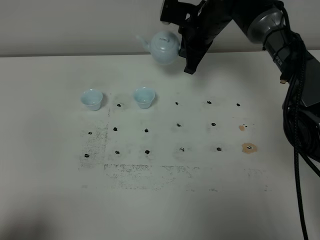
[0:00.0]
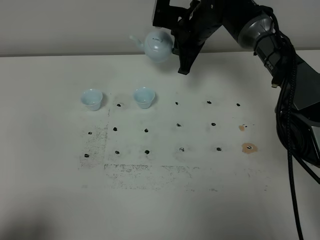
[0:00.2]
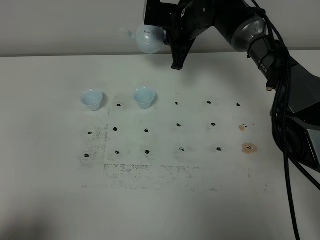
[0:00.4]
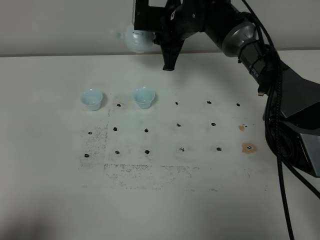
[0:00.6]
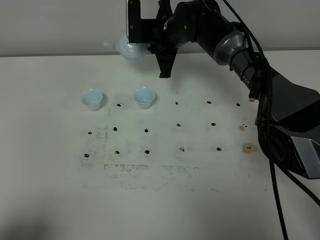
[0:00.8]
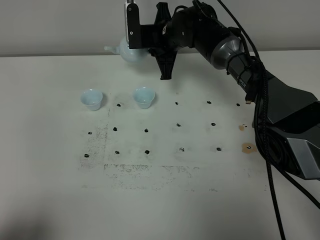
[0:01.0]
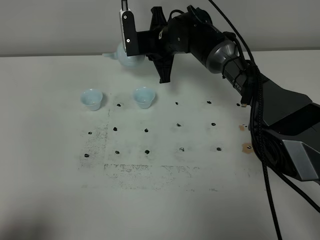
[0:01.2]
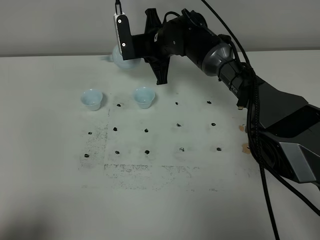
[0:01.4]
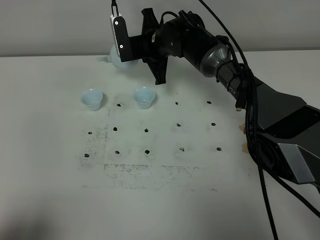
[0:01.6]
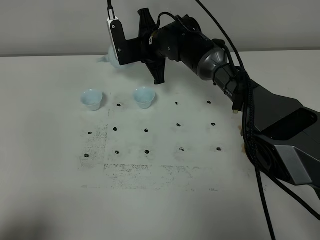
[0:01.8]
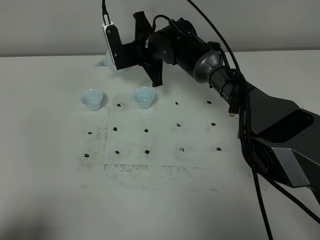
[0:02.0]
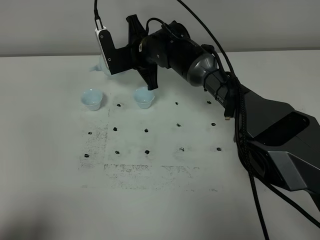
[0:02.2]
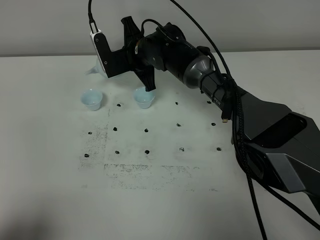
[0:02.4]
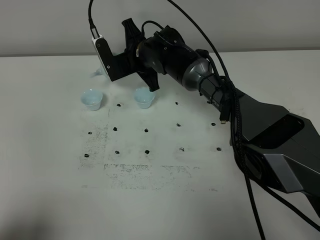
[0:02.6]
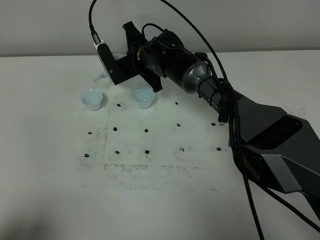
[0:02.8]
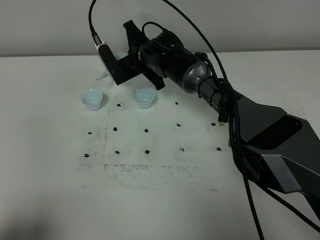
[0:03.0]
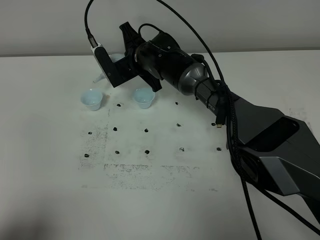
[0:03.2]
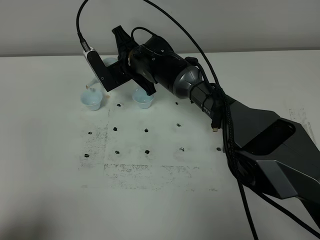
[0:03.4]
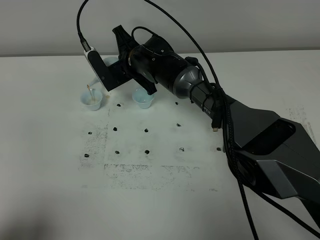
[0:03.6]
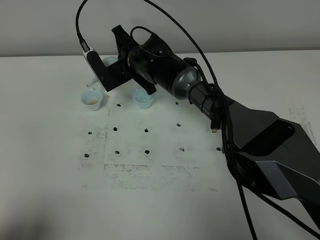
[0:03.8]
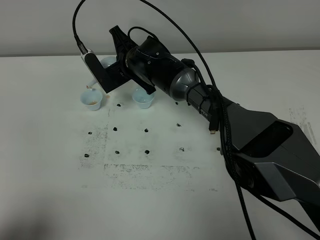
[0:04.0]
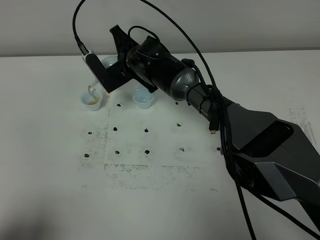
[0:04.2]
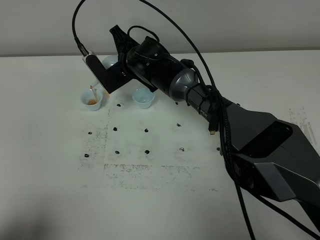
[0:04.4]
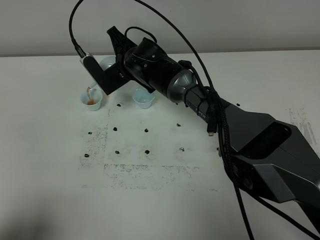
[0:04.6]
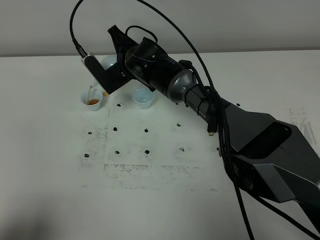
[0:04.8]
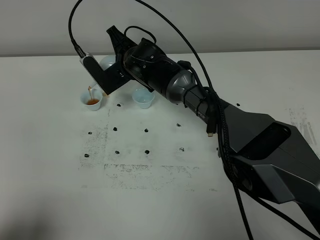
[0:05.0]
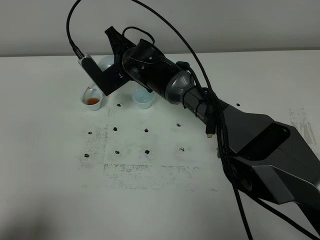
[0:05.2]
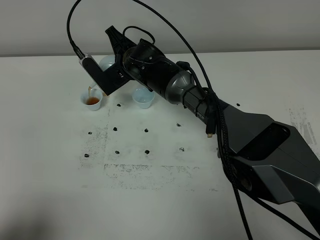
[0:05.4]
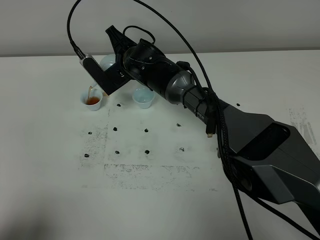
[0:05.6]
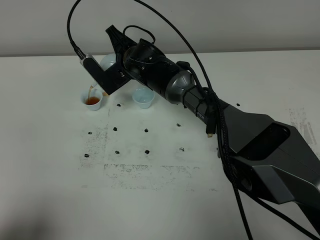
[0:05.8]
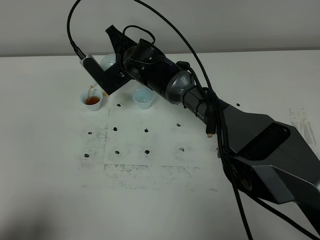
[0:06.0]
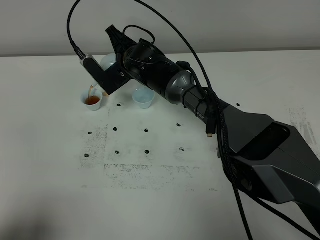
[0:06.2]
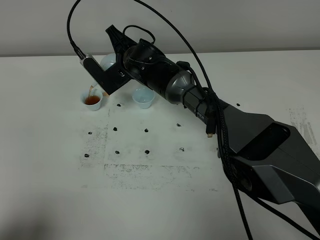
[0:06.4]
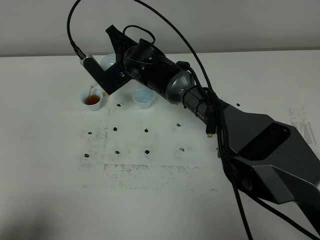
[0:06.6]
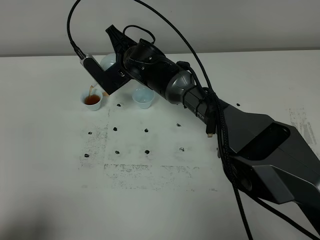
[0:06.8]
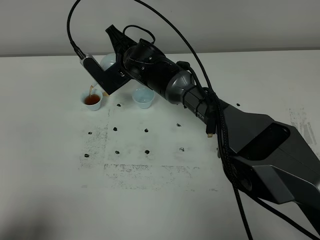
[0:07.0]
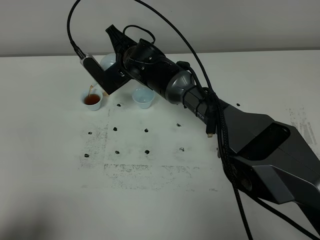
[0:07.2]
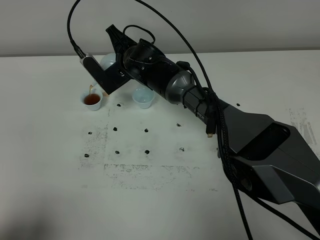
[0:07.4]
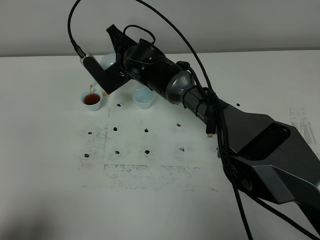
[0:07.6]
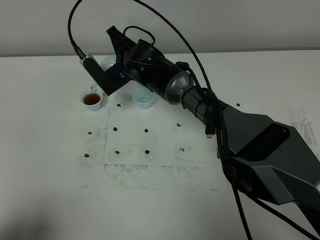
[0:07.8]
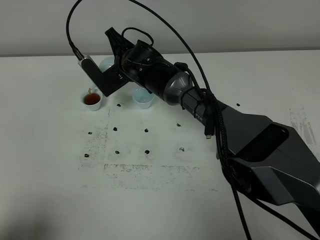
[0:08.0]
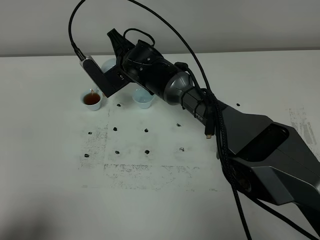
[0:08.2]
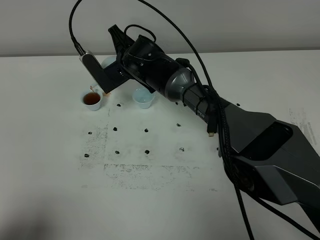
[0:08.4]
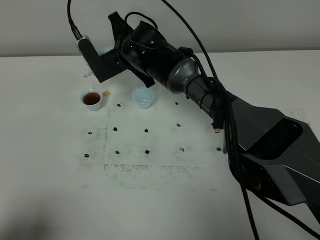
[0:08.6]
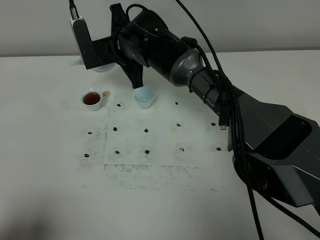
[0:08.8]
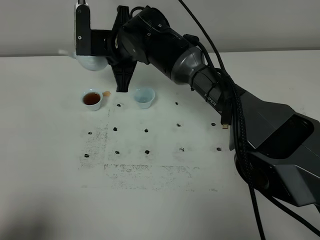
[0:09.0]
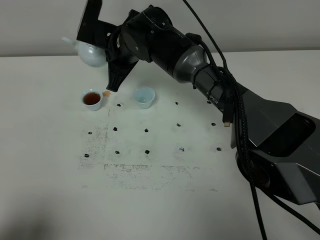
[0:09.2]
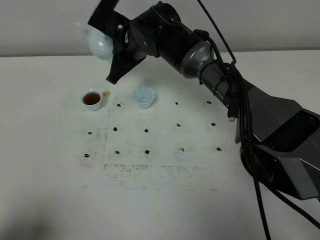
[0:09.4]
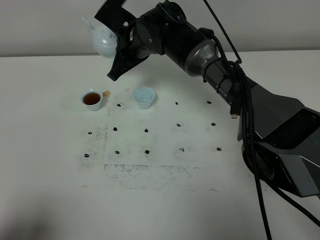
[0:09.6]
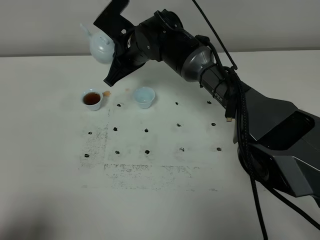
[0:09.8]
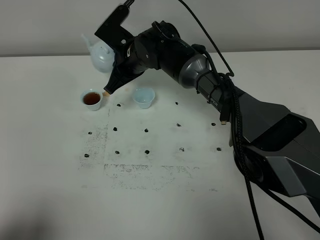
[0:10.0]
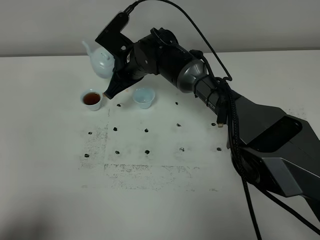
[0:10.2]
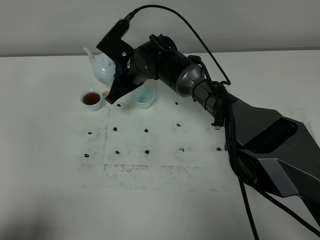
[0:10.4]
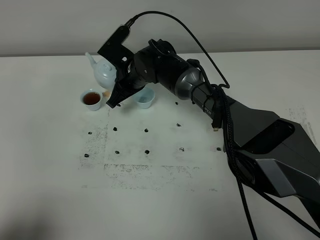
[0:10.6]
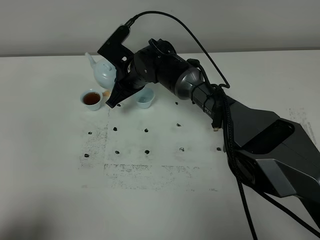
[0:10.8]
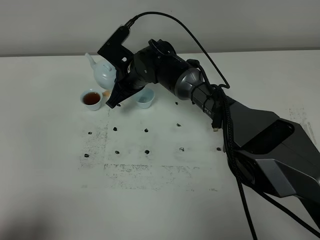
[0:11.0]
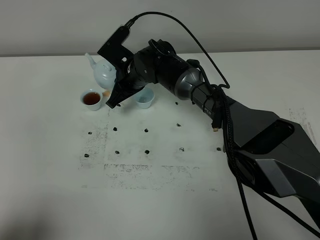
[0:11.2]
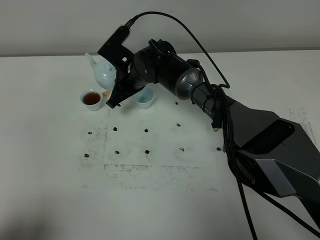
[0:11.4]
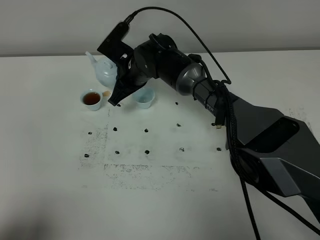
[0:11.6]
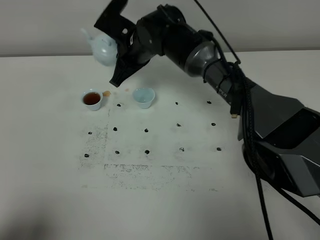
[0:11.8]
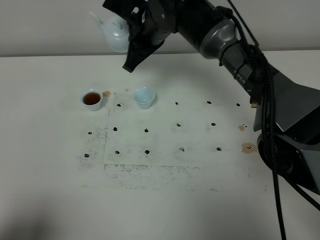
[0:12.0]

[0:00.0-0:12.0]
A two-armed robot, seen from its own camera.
Task of the whole recording: grasp the blue porcelain teapot and pour the tea into the two blue porcelain teacups one by one, put the blue porcelain teapot back in its original place.
Step, 0:00.0 to 0:08.6: Pour tea into the teacup with the right gripper.
0:00.0 to 0:01.6: The right gripper shifts roughly 10 cm to the left.
0:03.0 to 0:04.4: The grippers stay close to where they were, moving slightly.
0:04.4 to 0:07.6: Both grippers stay about where they are.
0:07.6 to 0:09.0: The right gripper is displaced upward by roughly 5 cm.
0:09.0 to 0:10.4: The right gripper moves downward, roughly 10 cm.
0:10.4 to 0:12.0: The right gripper is displaced upward by about 10 cm.

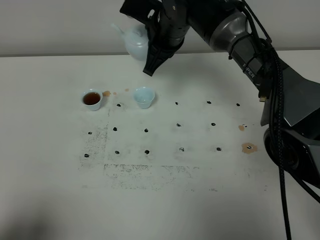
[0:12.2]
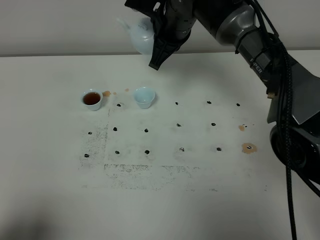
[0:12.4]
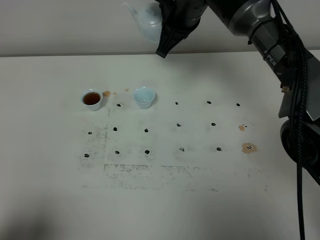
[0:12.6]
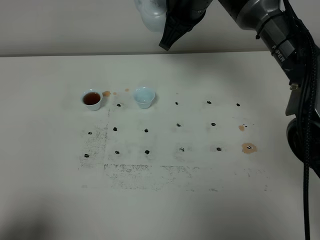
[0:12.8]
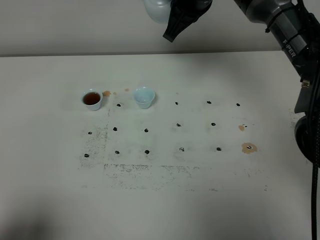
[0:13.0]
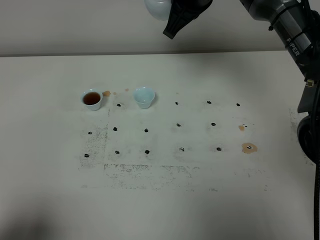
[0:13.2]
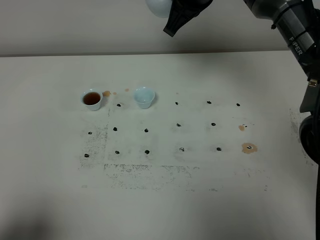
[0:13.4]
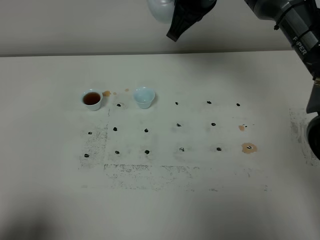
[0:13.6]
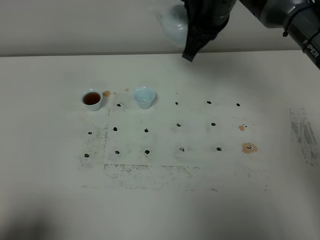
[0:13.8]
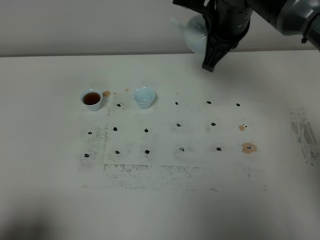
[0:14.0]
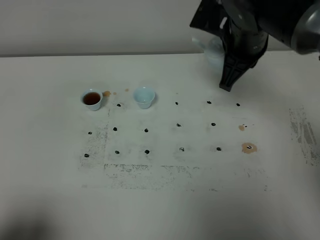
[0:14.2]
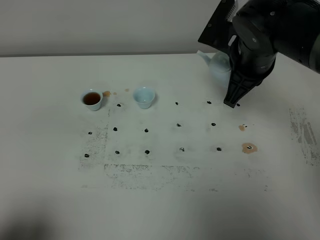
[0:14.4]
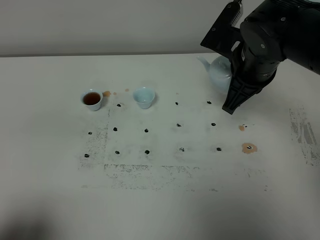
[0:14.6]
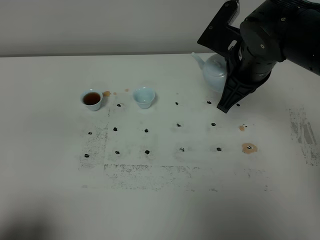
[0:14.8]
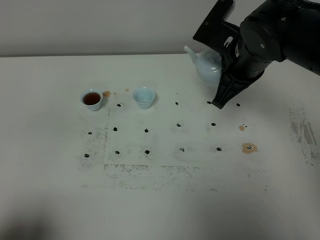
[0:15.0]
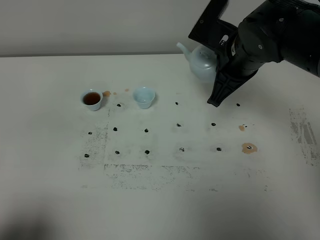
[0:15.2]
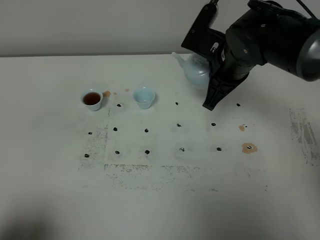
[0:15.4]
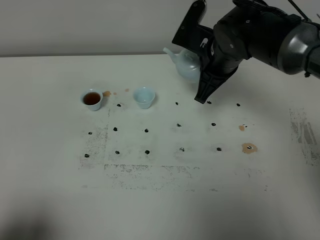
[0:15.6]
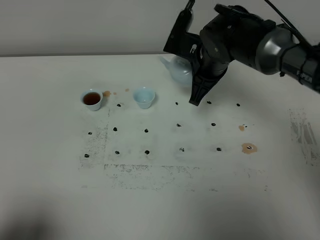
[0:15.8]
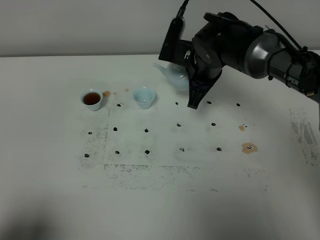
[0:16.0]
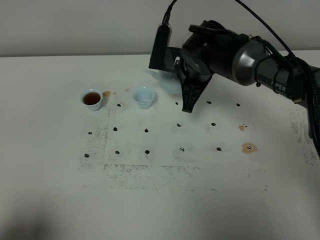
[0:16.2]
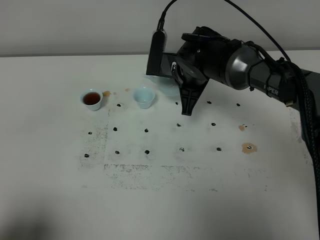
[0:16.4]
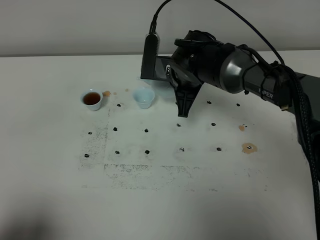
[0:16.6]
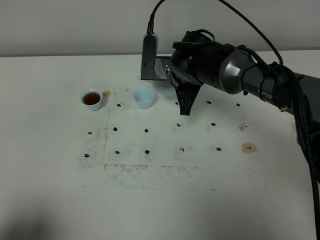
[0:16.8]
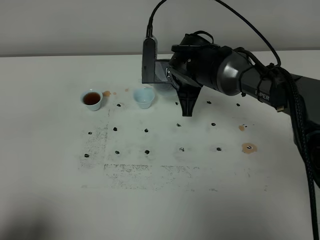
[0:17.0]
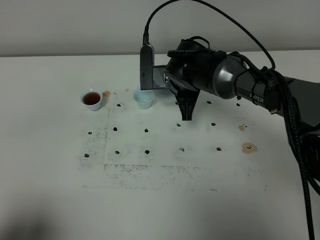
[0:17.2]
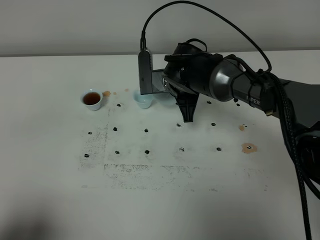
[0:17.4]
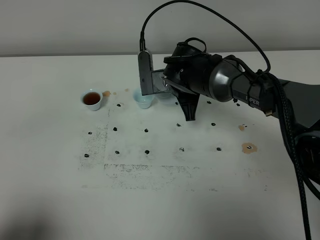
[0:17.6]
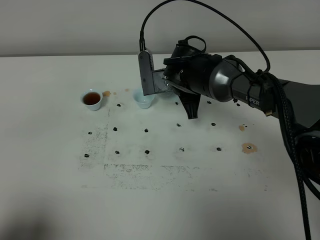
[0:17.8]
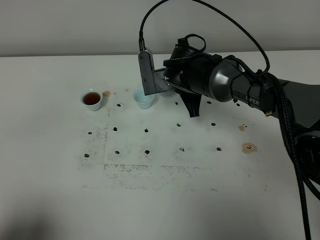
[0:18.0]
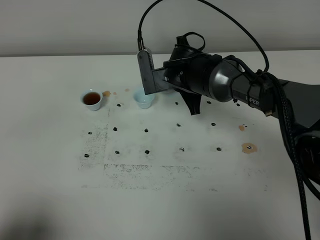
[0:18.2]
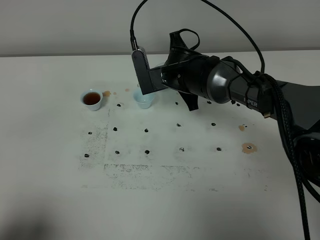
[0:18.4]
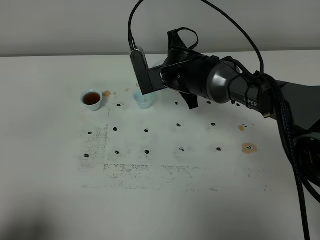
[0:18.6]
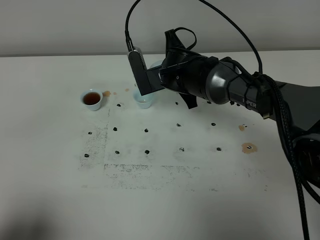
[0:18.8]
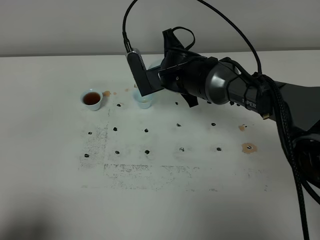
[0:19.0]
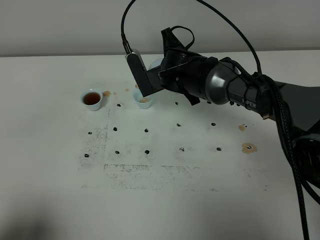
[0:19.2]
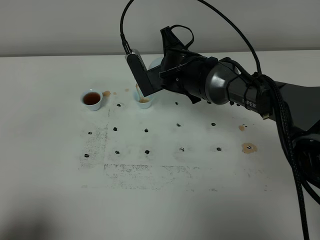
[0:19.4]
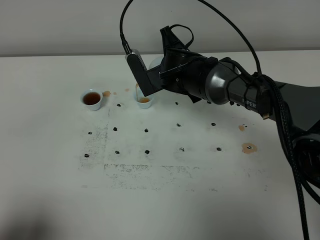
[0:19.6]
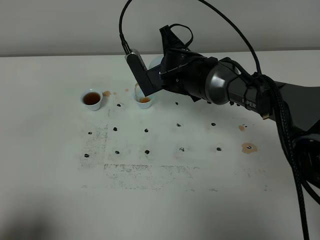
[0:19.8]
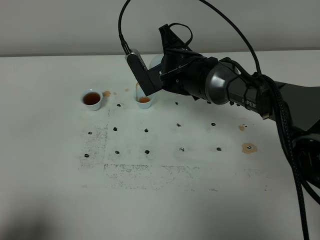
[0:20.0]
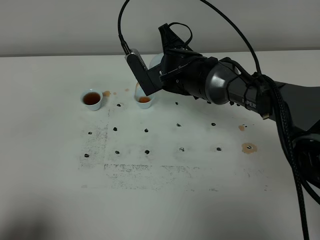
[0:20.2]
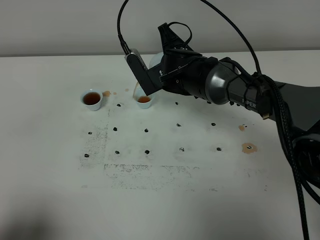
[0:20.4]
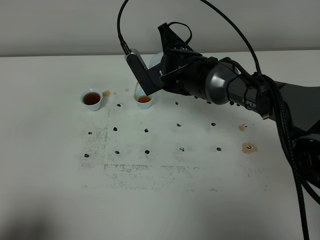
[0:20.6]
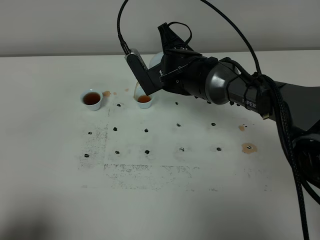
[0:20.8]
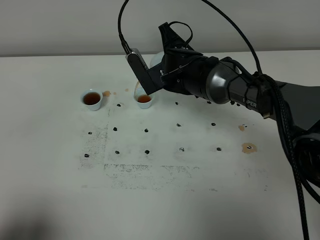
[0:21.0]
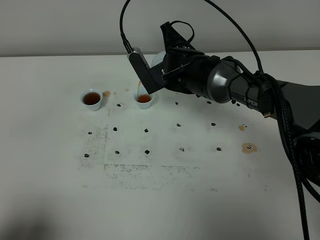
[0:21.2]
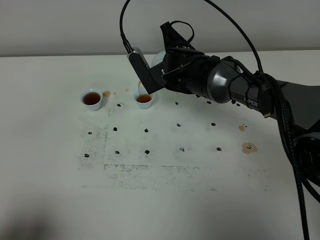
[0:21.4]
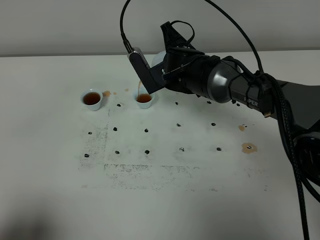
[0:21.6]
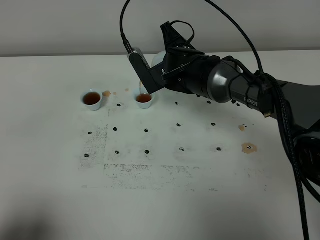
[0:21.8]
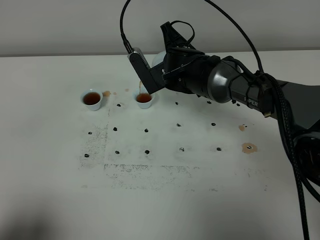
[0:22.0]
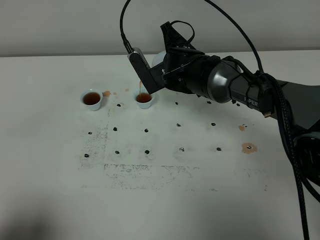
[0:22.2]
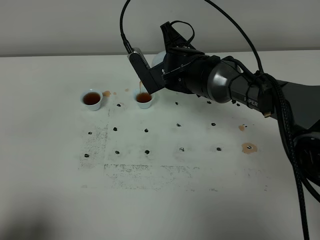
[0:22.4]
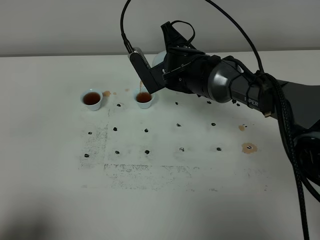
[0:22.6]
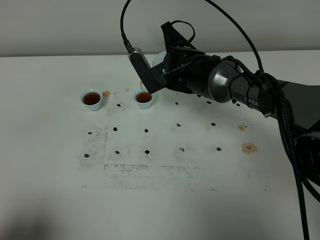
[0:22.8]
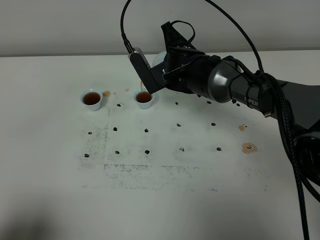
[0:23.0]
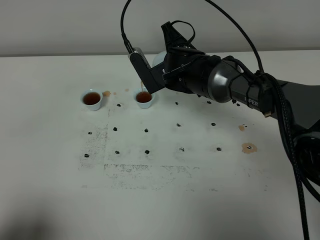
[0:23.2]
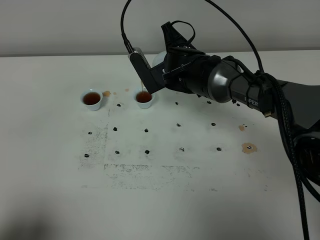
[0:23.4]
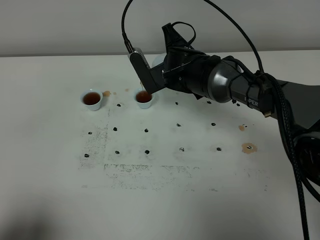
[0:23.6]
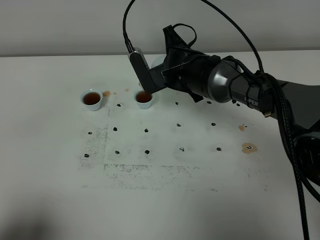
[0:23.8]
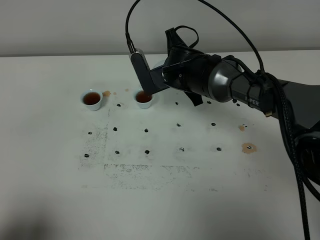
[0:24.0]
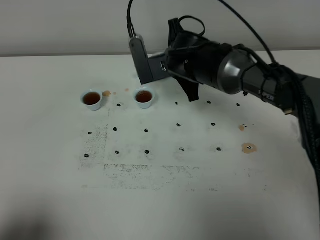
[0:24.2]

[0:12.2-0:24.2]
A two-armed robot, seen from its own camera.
Task of the whole recording: grasp the blue porcelain teapot and pour the tea into the two blue porcelain teacups one by one, put the blue porcelain teapot back in its original place.
Step, 0:12.2 to 0:24.2: Pour tea into the teacup with the right gripper.
0:12.2 to 0:13.8: The right gripper travels to the right and upward by some 10 cm.
0:13.8 to 0:15.2: The right gripper heads backward, covering about 5 cm.
0:15.2 to 0:16.6: The right gripper travels downward, to the left and forward by about 10 cm.
0:18.2 to 0:19.8: The grippers move only a little.
0:19.8 to 0:22.6: The two grippers keep their place.
0:22.6 to 0:24.2: The grippers make only small movements.
